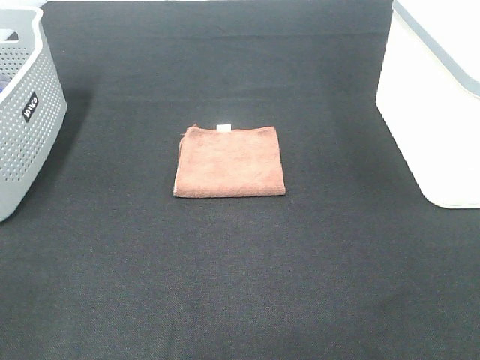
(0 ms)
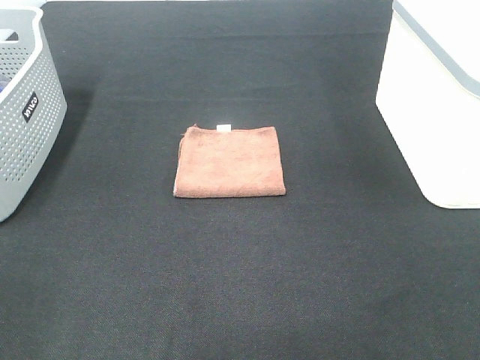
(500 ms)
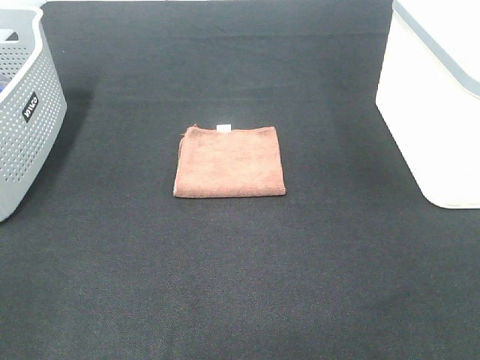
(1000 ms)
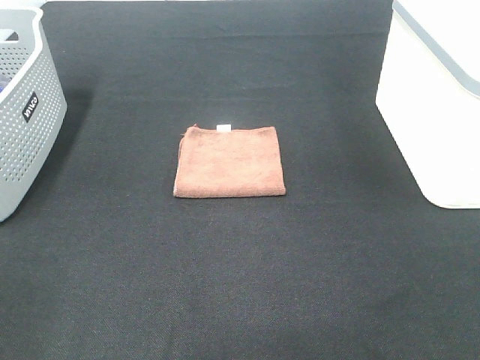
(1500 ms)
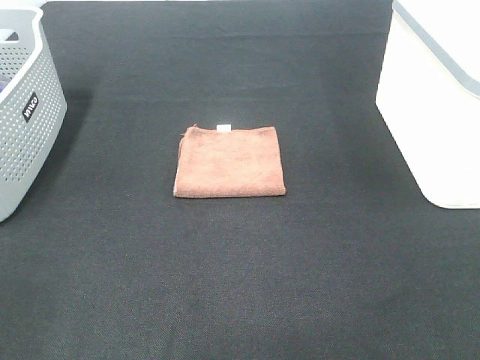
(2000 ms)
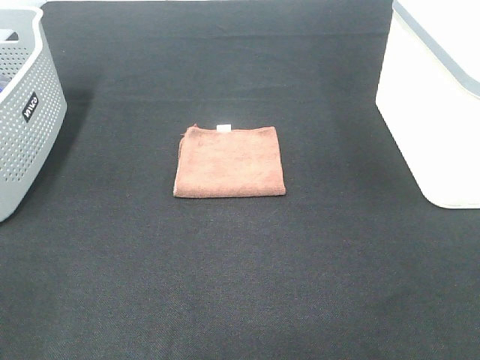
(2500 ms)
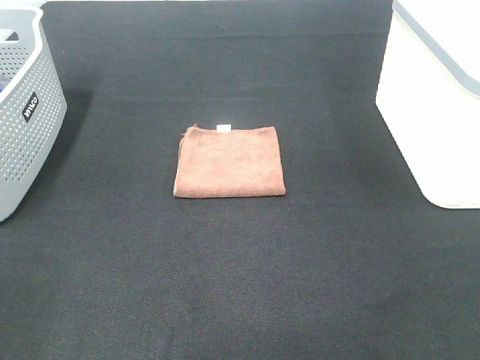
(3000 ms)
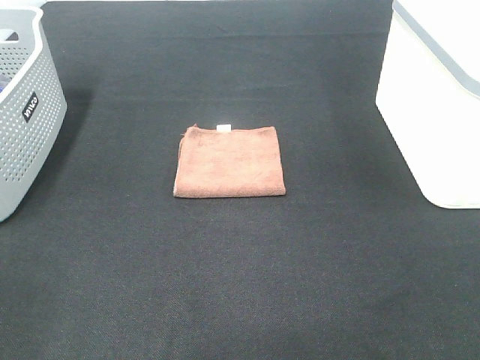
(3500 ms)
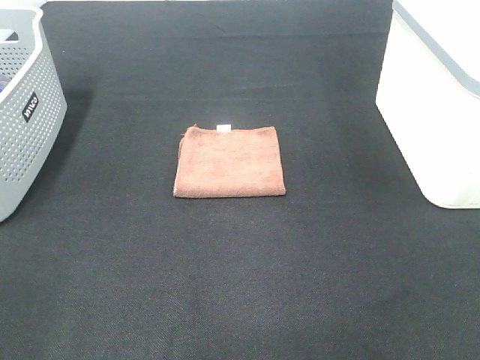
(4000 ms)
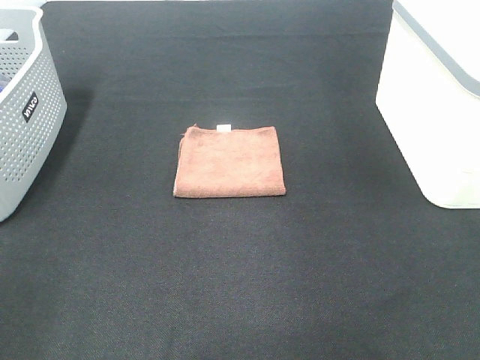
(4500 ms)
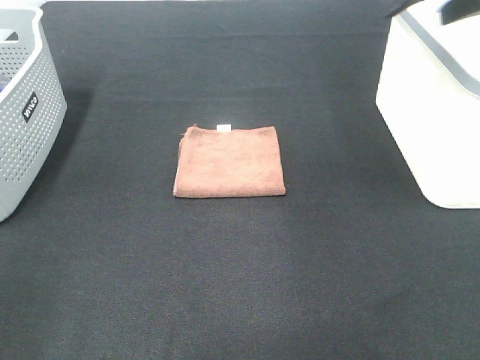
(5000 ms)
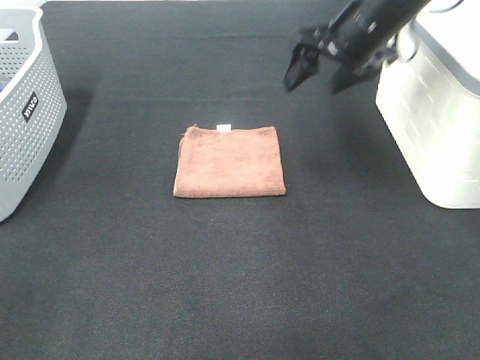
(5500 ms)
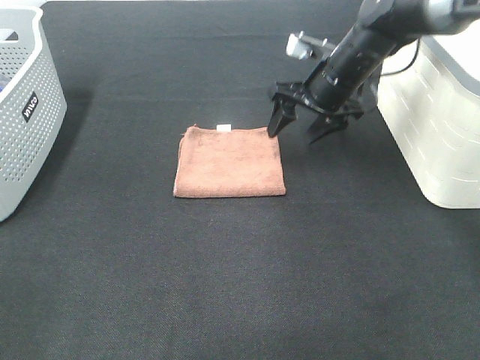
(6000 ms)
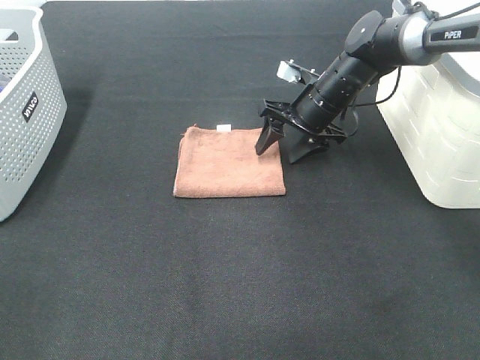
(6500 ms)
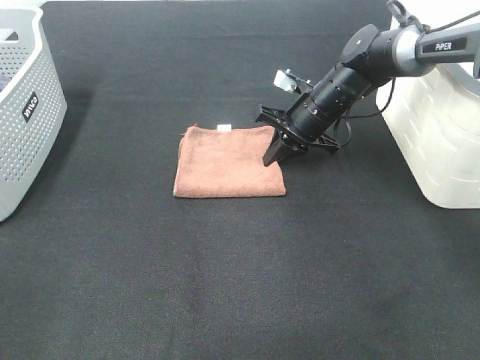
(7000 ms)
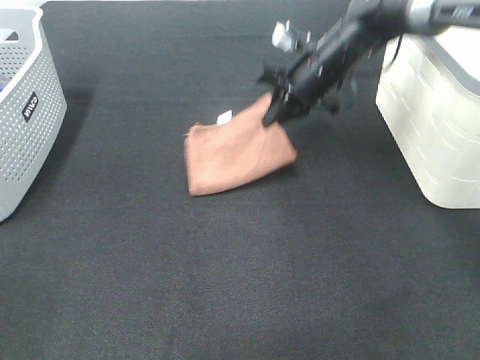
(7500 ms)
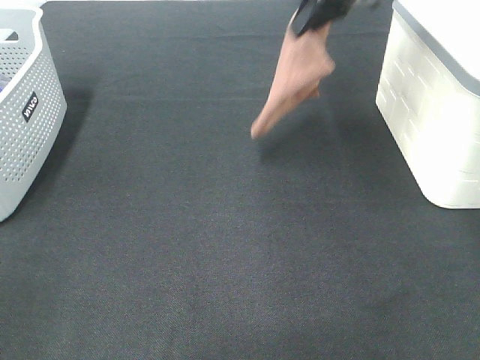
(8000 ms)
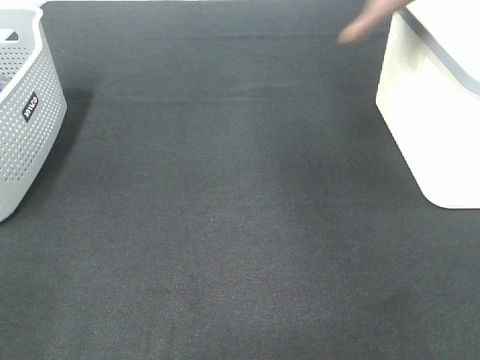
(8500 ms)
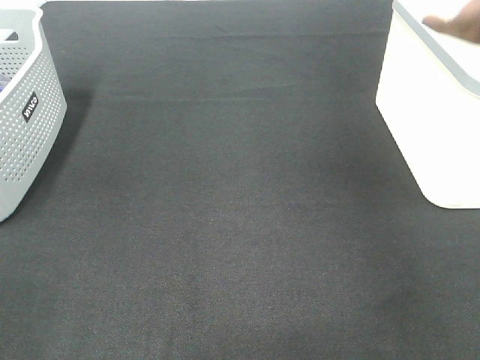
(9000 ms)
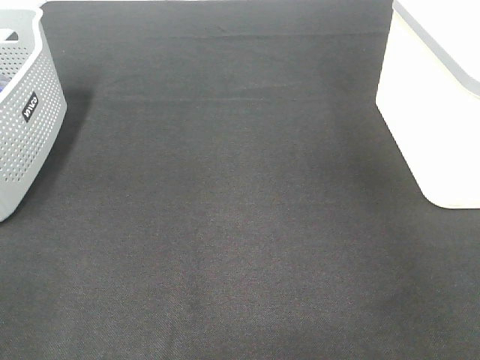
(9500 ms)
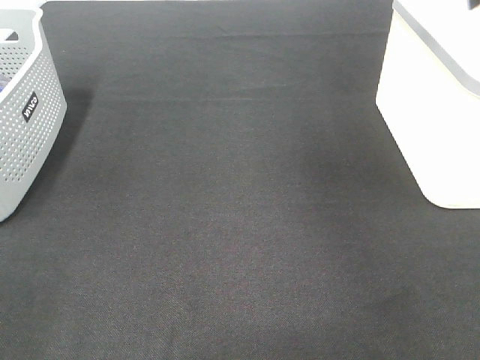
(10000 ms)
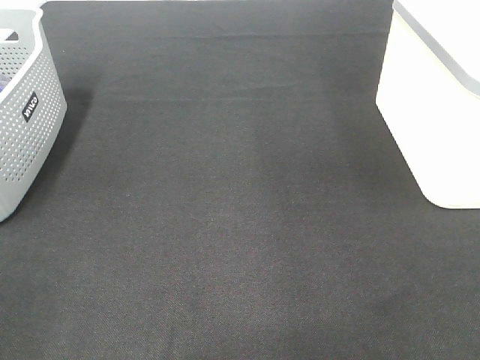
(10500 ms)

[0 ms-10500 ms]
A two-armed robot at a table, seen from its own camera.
Step, 0 ms to 7000 ms: Right hand: grab the folded brown towel.
Step, 7500 ms to 9000 ms: Right hand: place the brown towel in right basket.
0 ms to 2000 ms: Neither gripper changes place.
4000 ms to 6500 ms: The right gripper goes about 50 cm forward and downward.
6500 ms to 8500 ms: The right gripper shifts approximately 35 cm upward and to the right, and closes its fingers.
8500 ms to 10500 ms: The right gripper is displaced to the left and backward by roughly 10 cm, and opens.

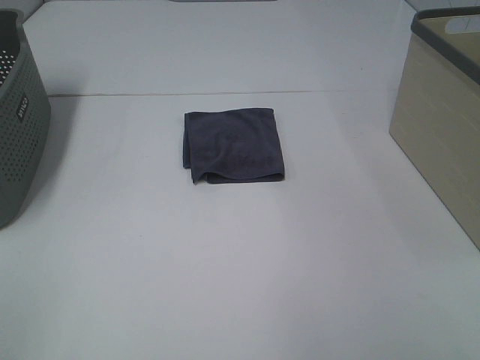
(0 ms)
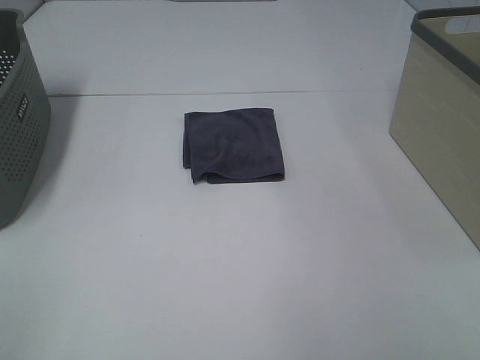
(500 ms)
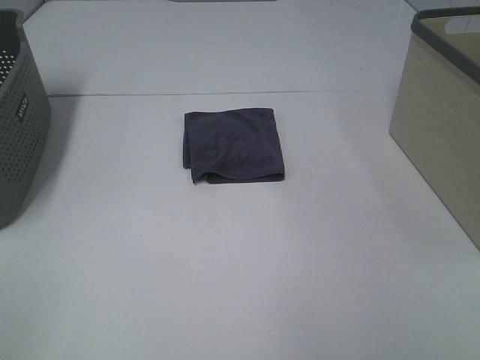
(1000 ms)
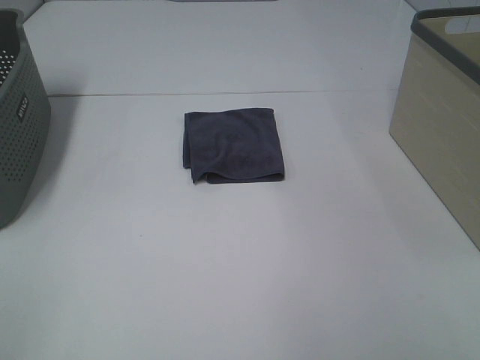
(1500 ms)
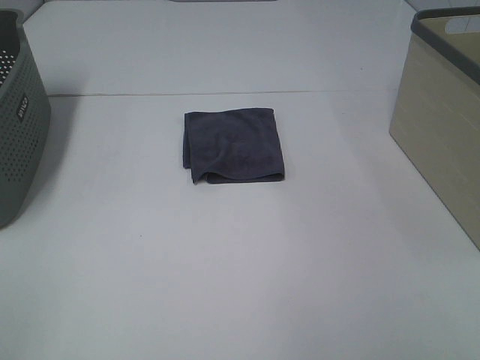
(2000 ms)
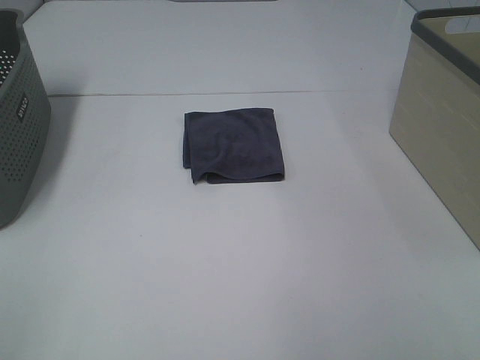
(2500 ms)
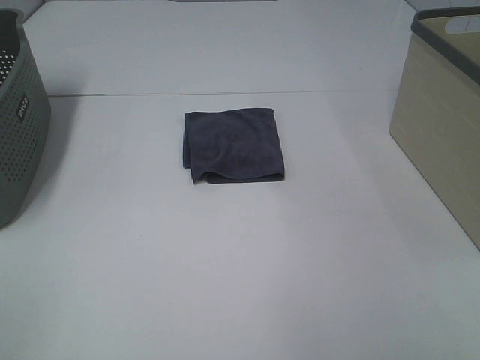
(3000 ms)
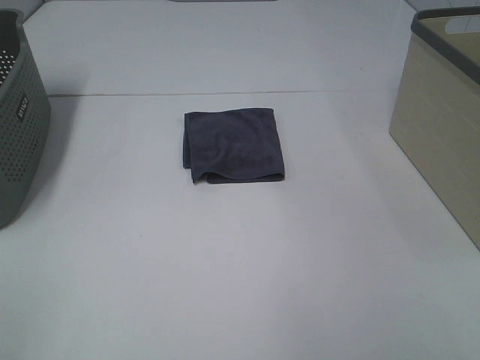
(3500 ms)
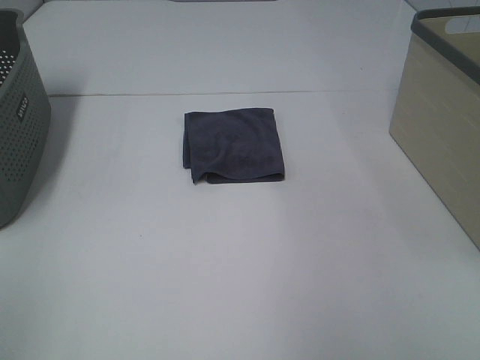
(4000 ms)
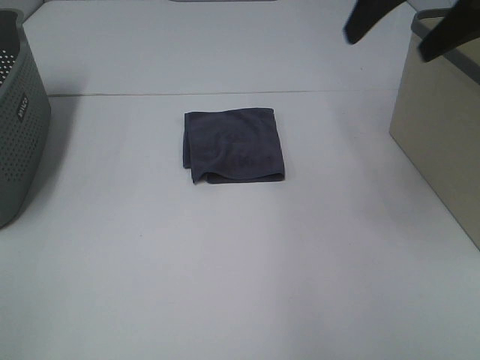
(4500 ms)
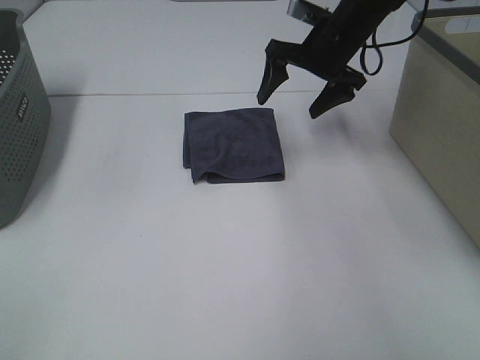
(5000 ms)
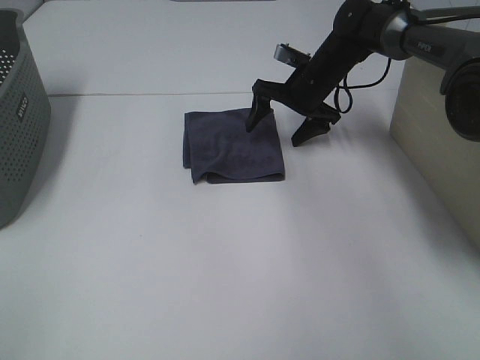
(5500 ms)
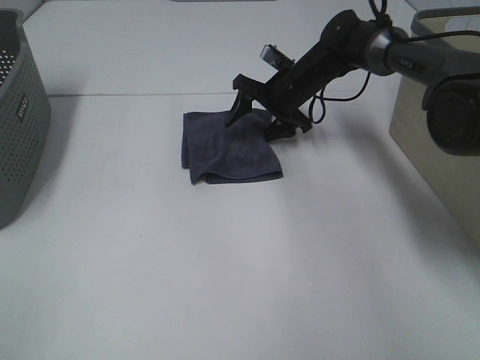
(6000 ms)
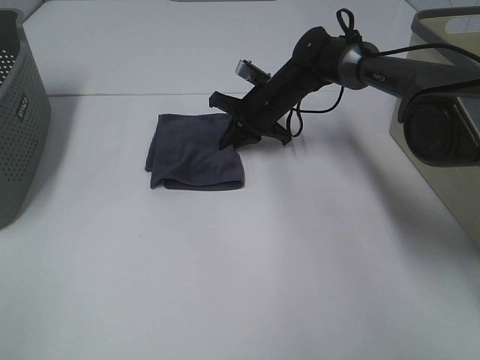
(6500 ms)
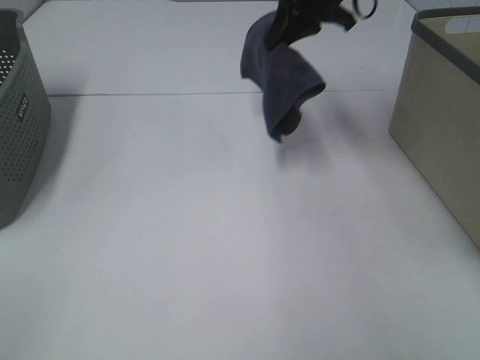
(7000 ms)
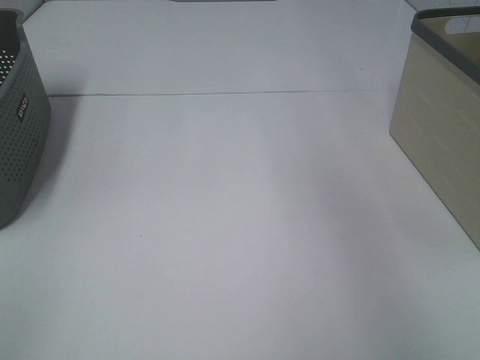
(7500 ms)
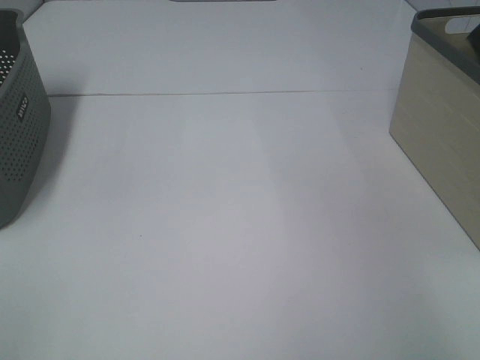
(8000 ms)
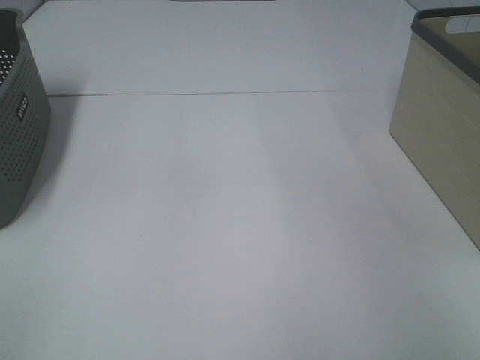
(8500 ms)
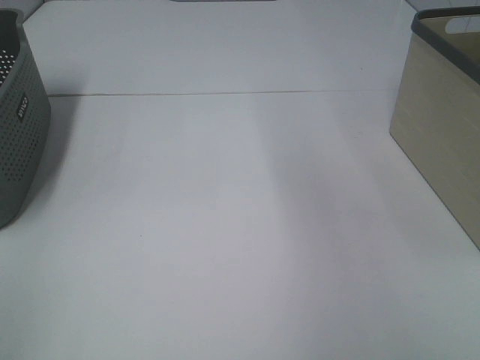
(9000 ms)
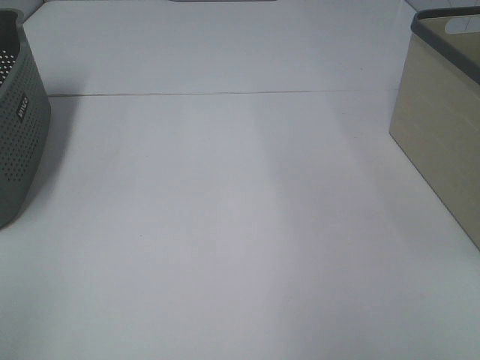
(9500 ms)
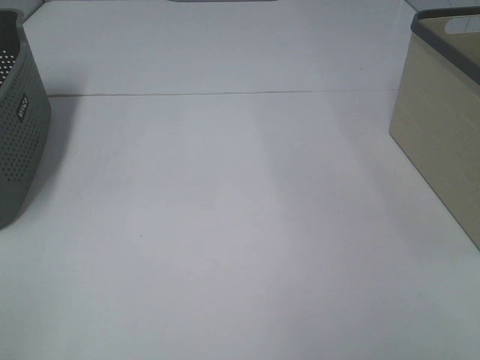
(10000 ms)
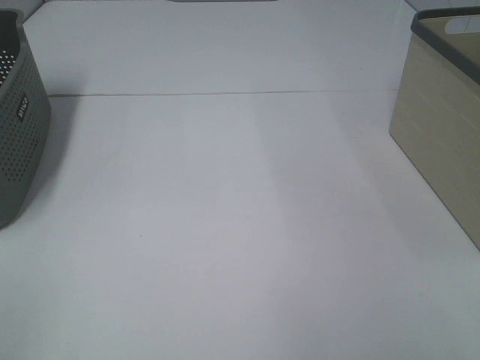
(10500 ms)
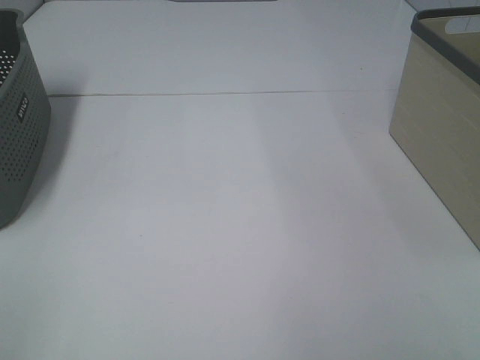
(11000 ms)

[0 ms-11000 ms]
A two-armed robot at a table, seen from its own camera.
Step, 0 ms to 6000 ms: Right hand: grab the folded grey towel.
Step, 6500 ms to 8000 ms: Right hand: place the grey towel in right basket.
0 ms to 3500 ms: Neither gripper changes place.
3500 ms to 5500 ms: The right gripper is displaced forward by roughly 50 cm.
5500 ms to 7500 ms: The right gripper moves upward and to the right, approximately 40 cm, and closes.

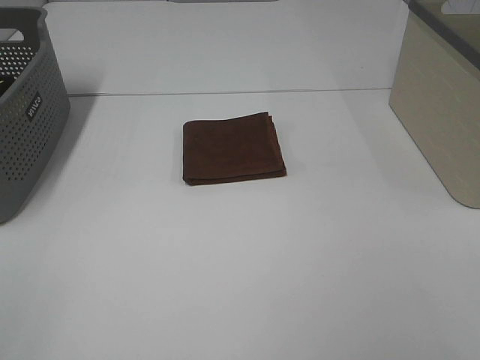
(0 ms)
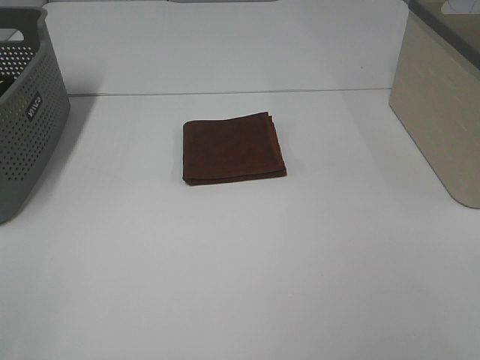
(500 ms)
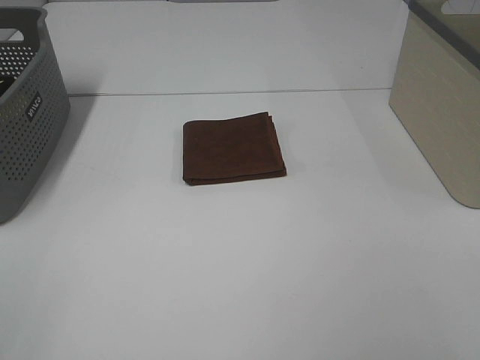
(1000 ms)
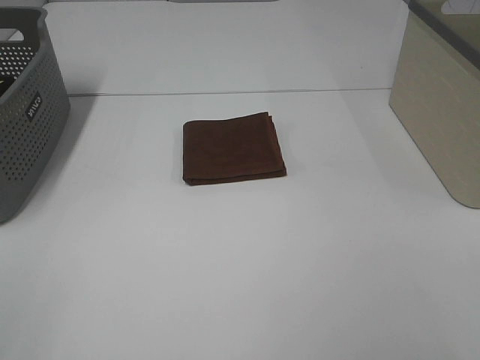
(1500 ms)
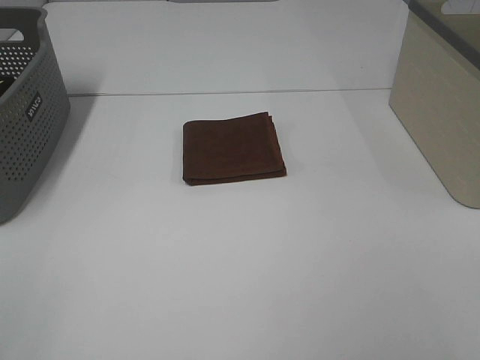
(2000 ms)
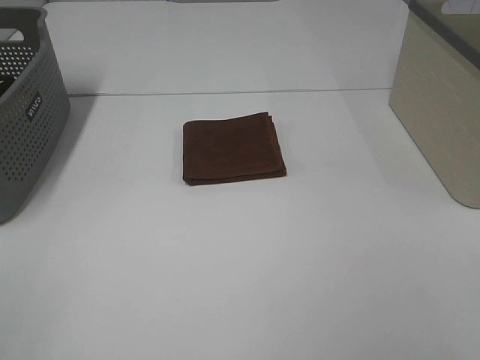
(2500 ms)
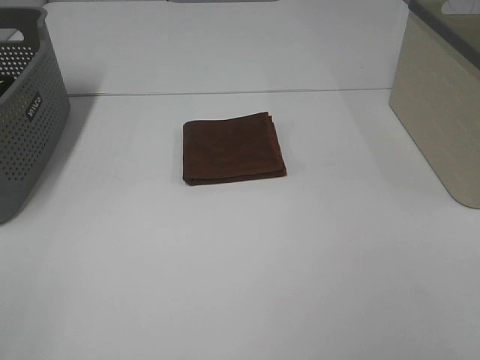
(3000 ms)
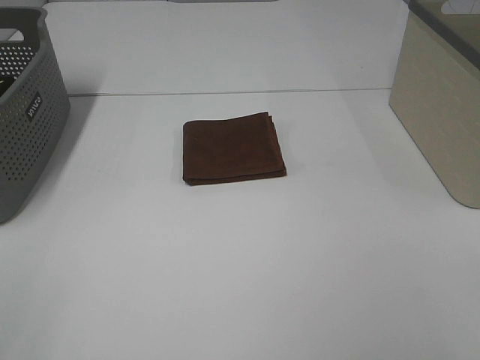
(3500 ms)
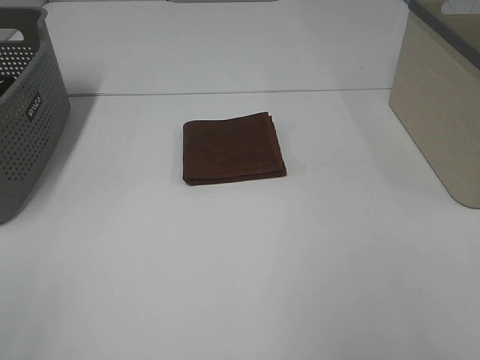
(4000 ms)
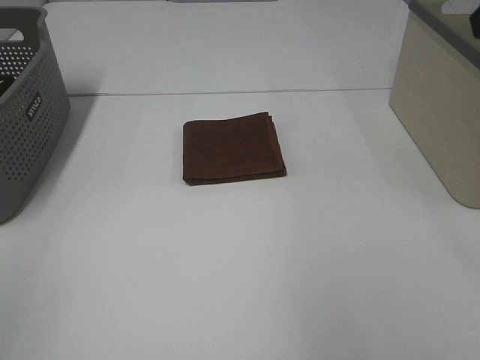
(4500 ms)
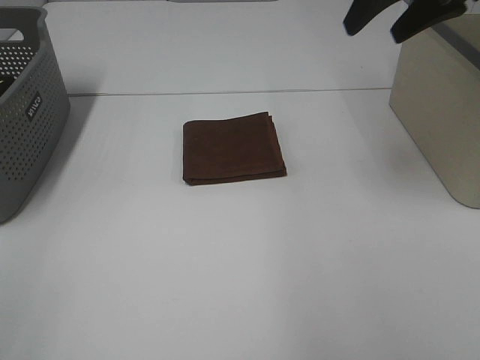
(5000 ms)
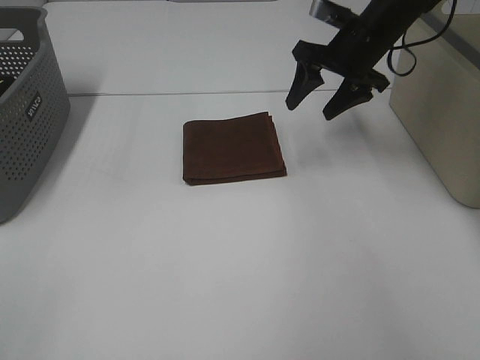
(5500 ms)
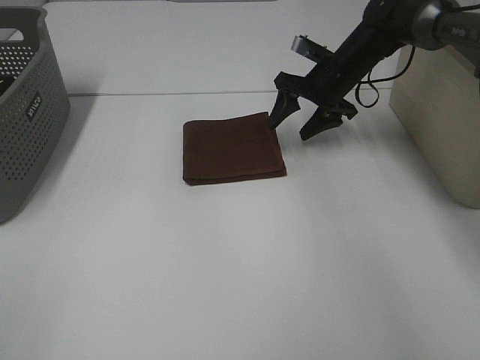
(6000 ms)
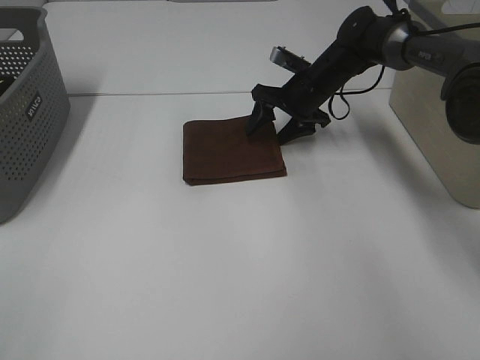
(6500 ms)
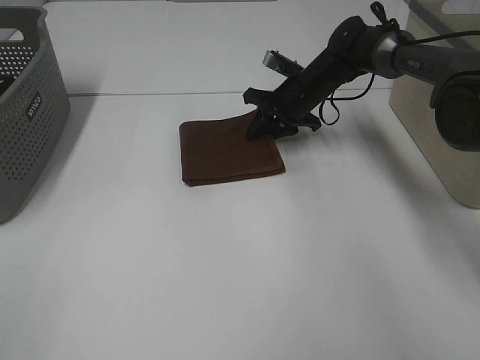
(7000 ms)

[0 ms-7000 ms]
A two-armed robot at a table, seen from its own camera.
Step, 0 ms to 7000 ms: Right hand: grab the folded brown towel.
0 ms to 3500 ms: Both grippers stay about where they are.
3500 ms to 5000 ms: The right gripper heads forward, covering roughly 40 cm.
5000 ms to 7000 ms: The right gripper travels downward and forward by roughly 30 cm, and closes.
